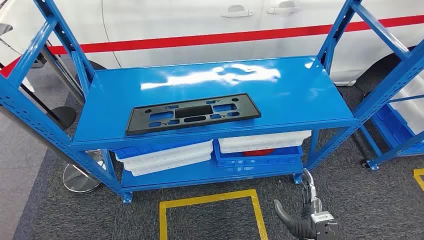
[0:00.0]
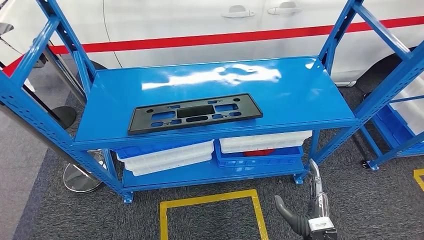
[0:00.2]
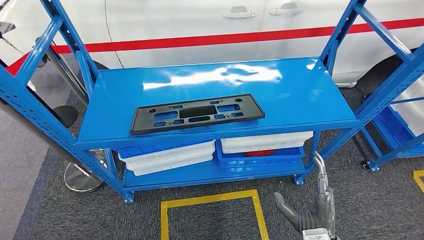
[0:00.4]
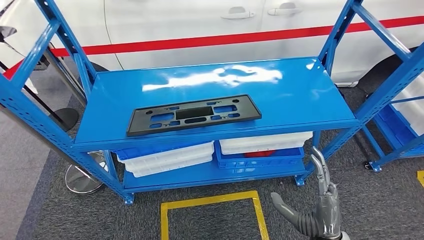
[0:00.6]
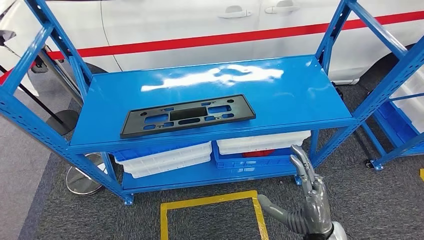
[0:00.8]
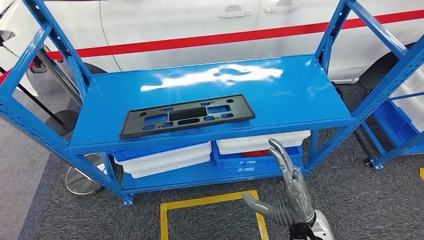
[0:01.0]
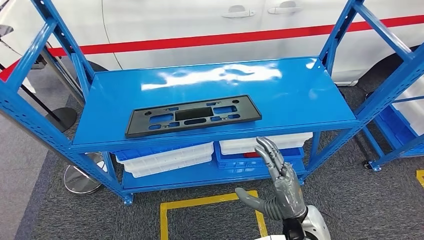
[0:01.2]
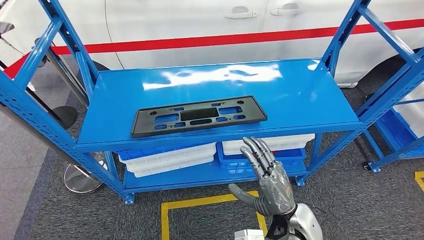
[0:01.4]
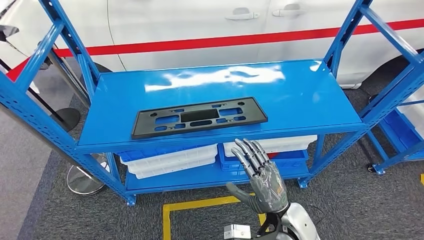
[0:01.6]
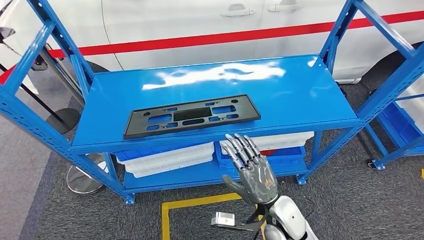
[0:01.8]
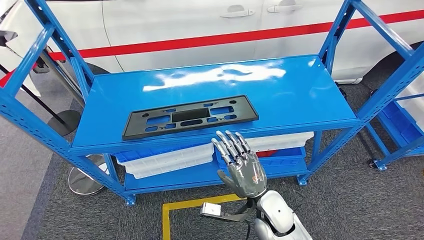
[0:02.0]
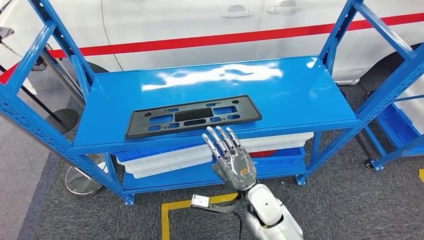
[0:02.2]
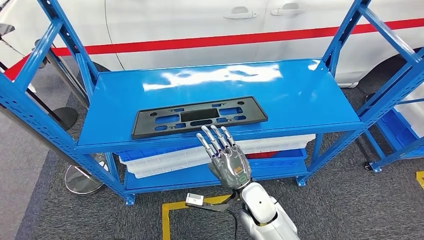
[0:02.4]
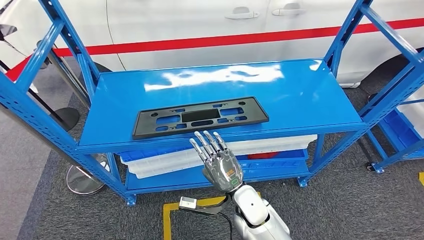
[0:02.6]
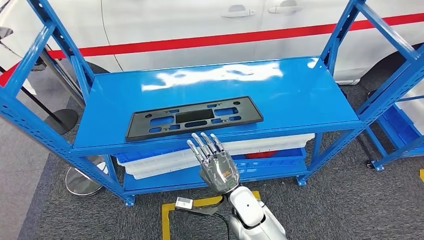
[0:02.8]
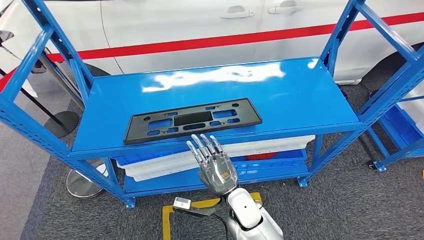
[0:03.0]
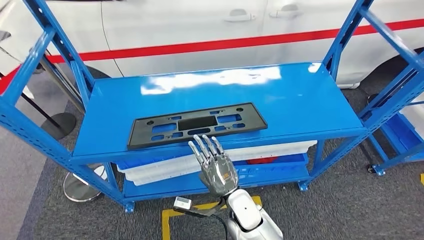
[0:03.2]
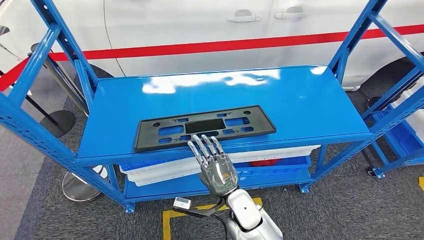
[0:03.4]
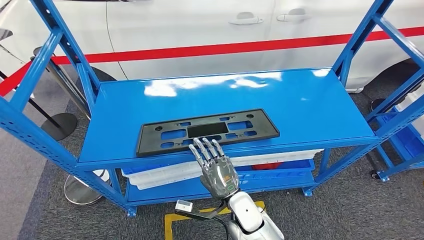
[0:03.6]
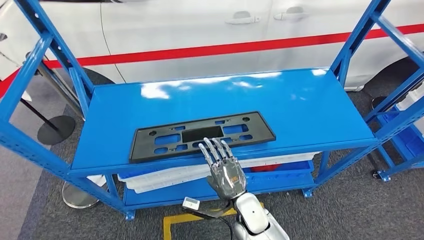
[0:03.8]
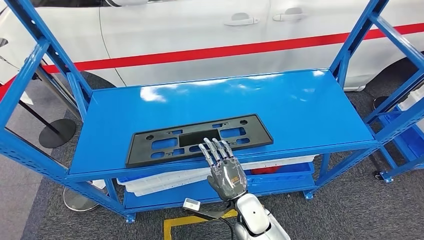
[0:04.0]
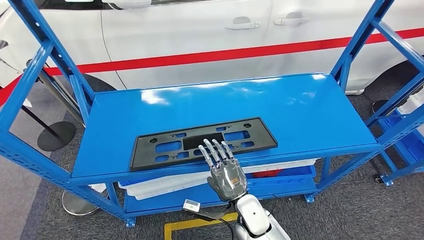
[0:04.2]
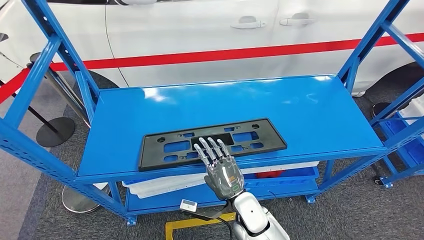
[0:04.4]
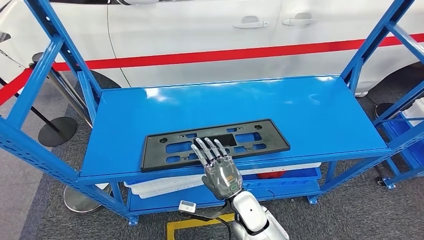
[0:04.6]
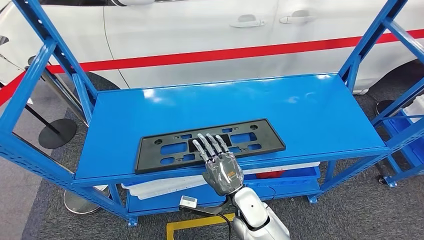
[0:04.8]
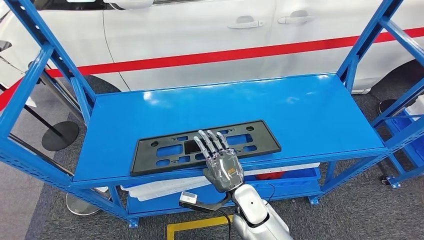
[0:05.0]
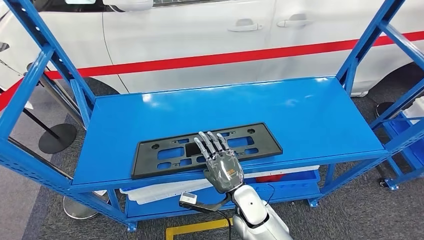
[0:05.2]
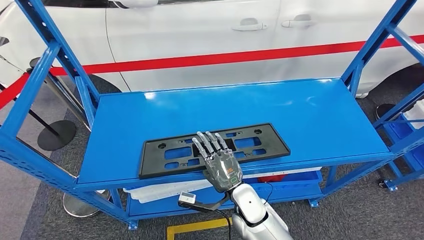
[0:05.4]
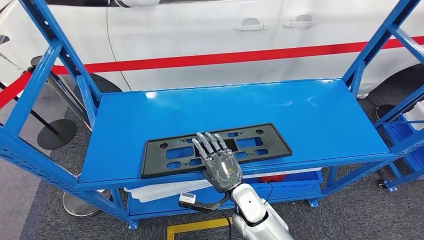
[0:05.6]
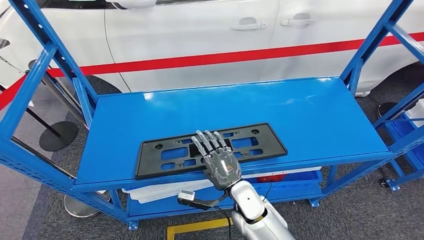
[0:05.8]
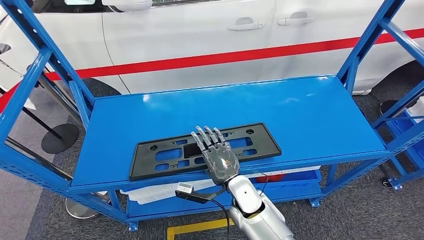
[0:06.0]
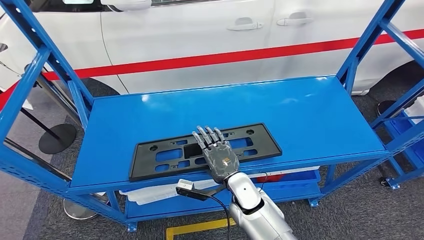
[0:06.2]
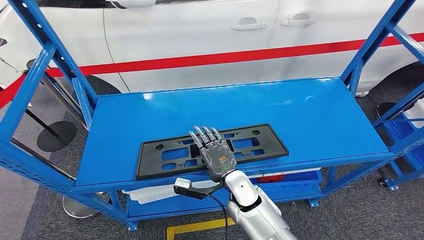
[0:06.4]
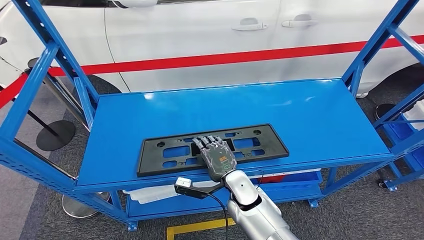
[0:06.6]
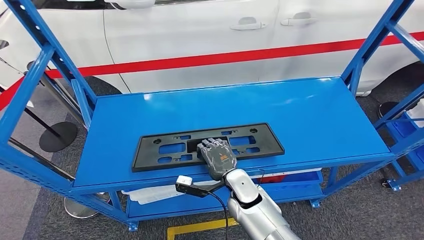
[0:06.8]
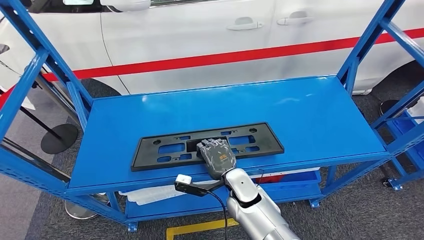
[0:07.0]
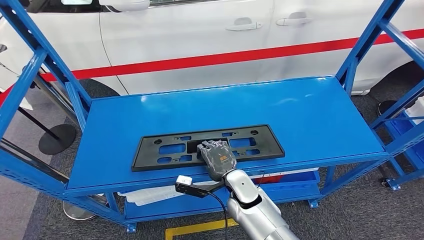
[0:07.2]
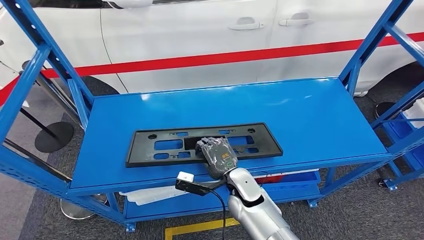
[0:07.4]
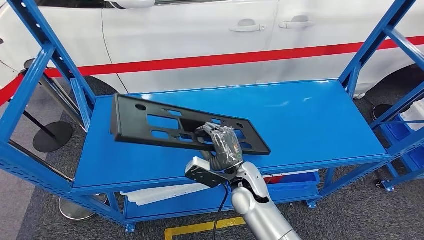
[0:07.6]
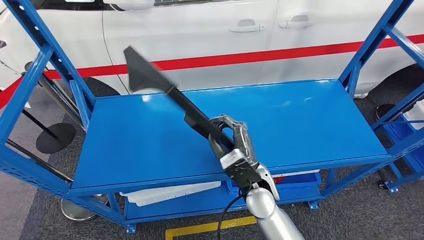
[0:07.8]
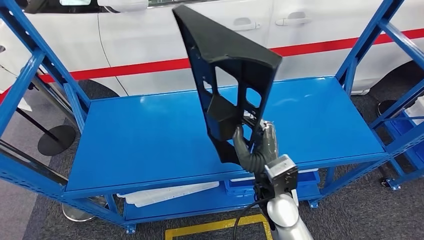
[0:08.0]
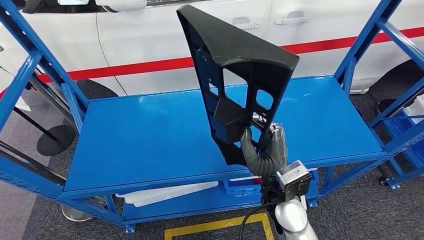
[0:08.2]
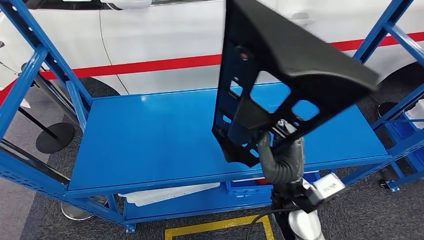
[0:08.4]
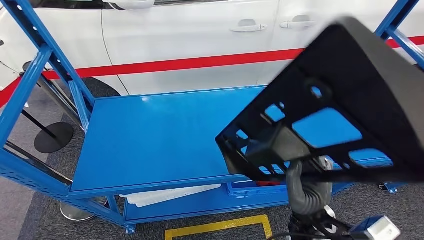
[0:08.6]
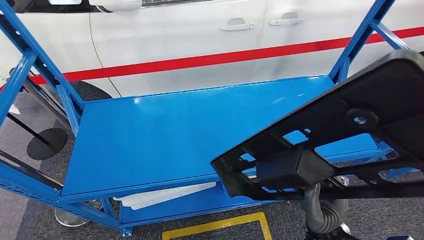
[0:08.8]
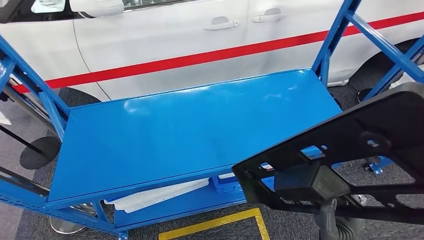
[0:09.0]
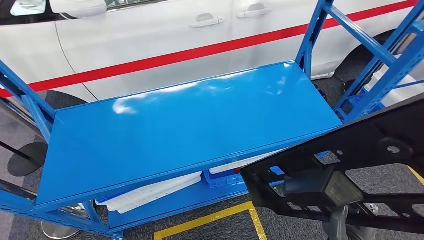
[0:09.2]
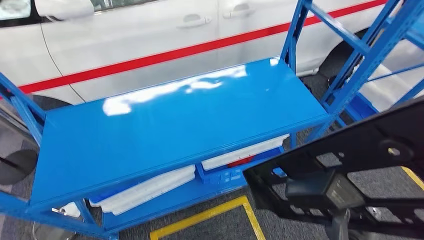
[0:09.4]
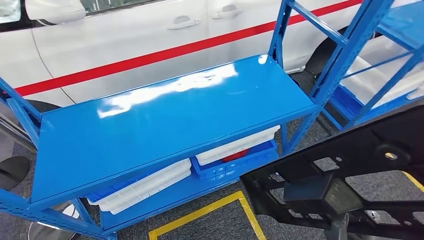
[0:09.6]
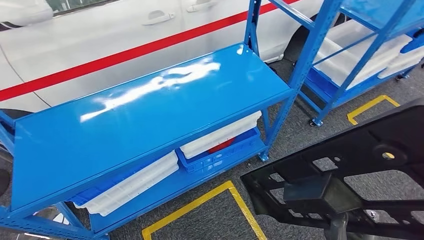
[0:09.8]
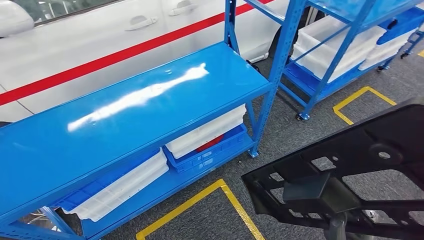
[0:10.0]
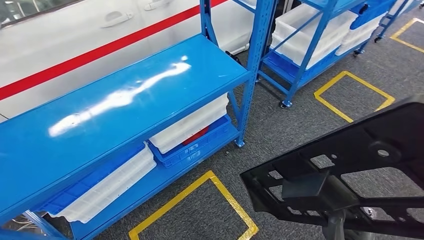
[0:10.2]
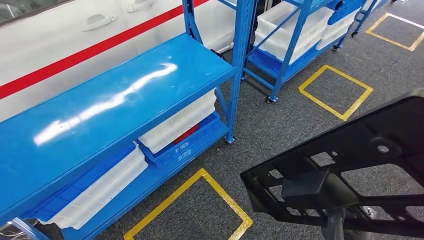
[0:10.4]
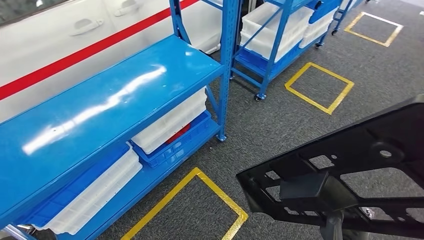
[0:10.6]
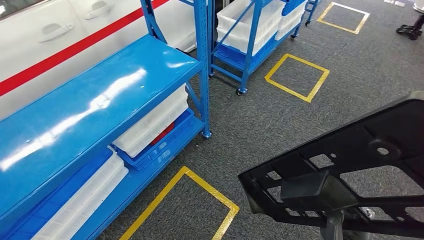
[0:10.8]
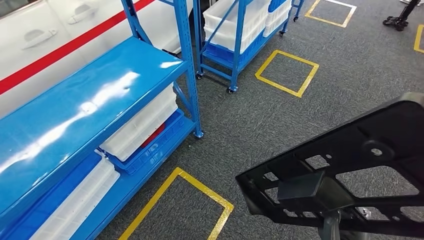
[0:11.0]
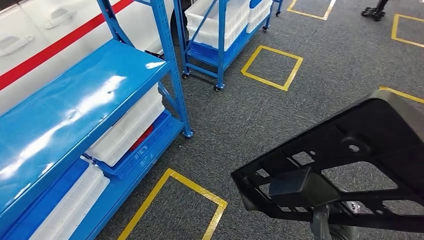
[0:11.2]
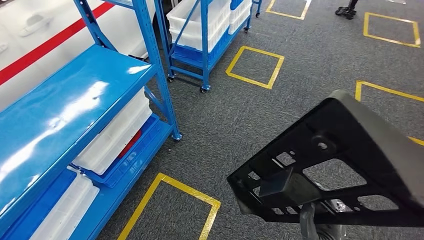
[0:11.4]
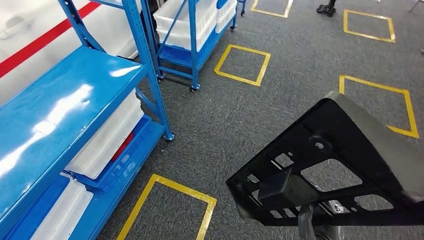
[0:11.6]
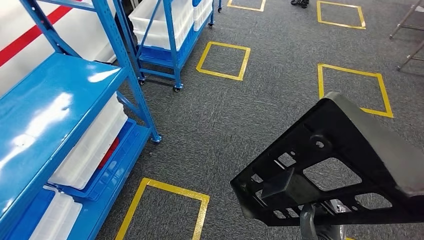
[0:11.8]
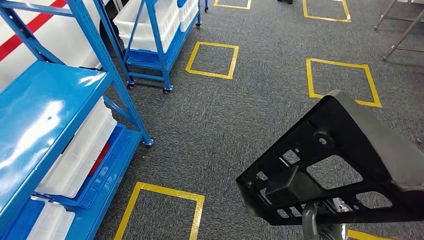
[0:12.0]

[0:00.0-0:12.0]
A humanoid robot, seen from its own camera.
Step, 0:00.0 to 0:08.4: Pick up the large material from the shelf.

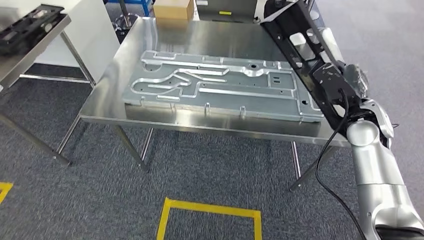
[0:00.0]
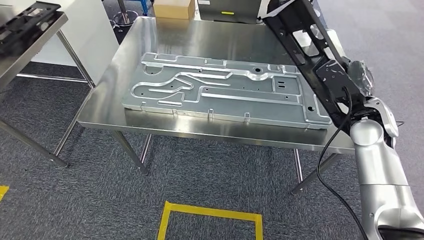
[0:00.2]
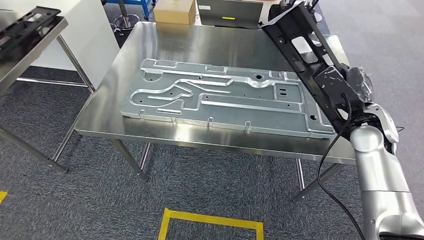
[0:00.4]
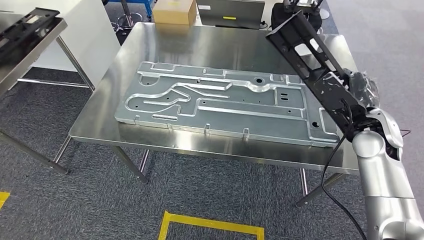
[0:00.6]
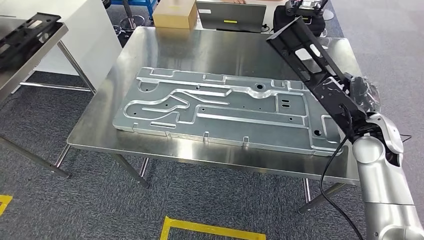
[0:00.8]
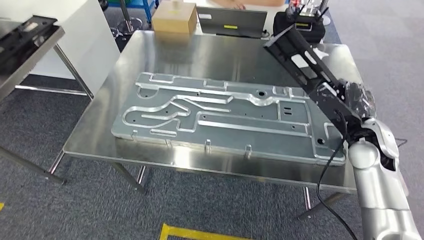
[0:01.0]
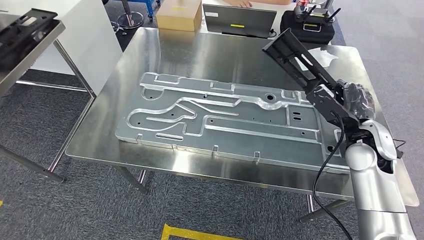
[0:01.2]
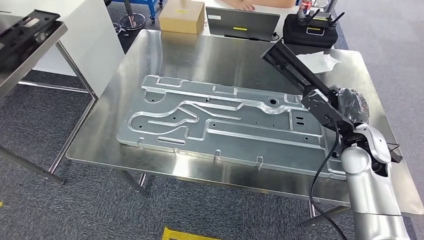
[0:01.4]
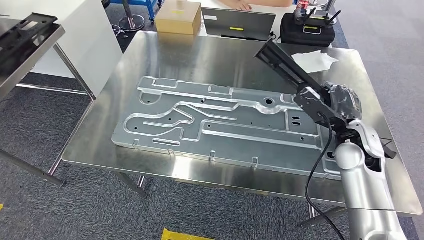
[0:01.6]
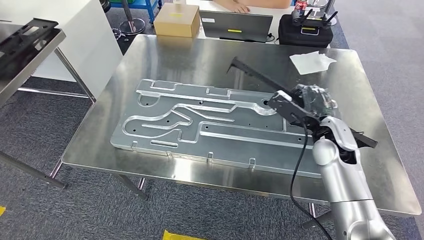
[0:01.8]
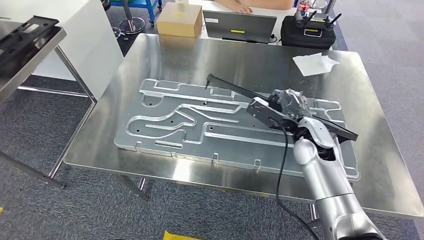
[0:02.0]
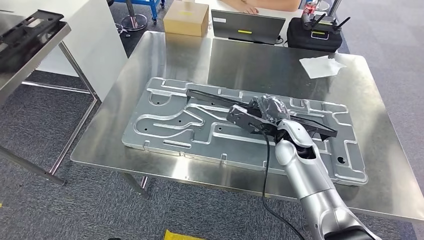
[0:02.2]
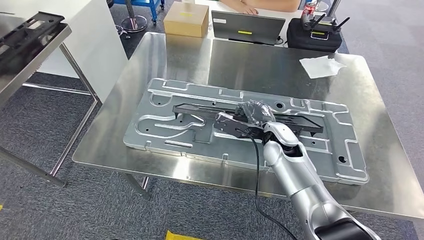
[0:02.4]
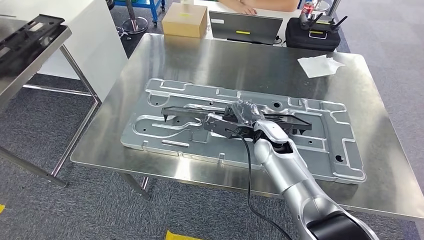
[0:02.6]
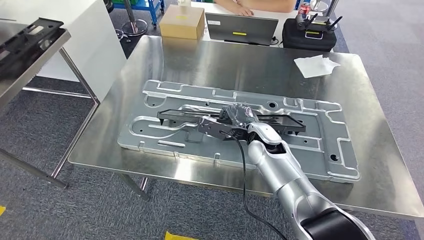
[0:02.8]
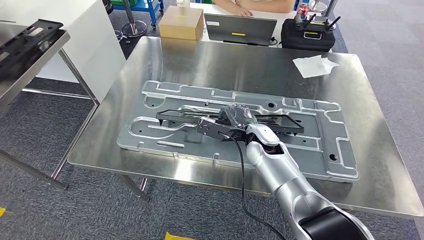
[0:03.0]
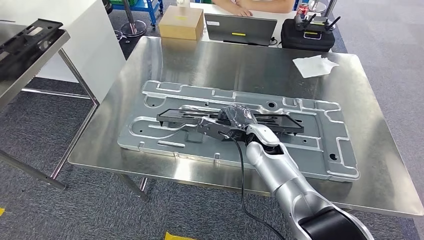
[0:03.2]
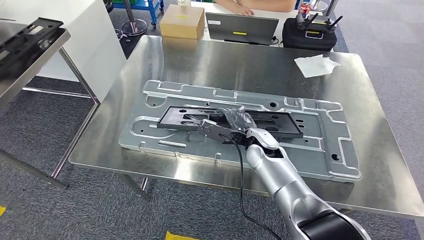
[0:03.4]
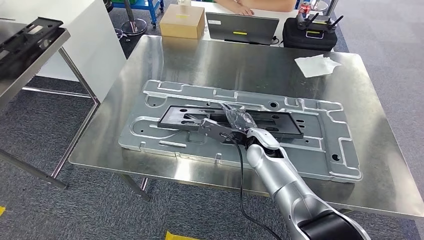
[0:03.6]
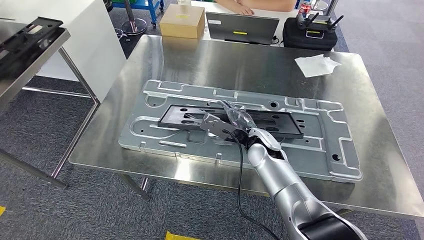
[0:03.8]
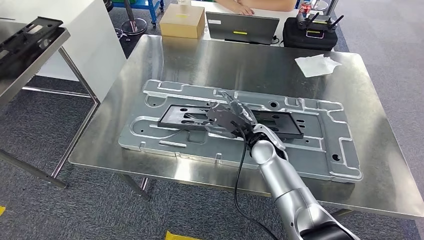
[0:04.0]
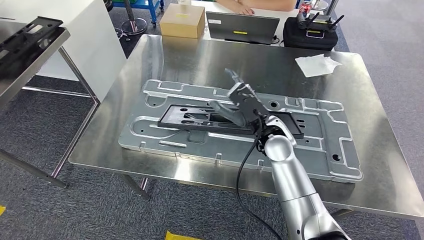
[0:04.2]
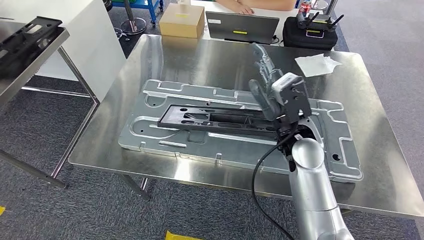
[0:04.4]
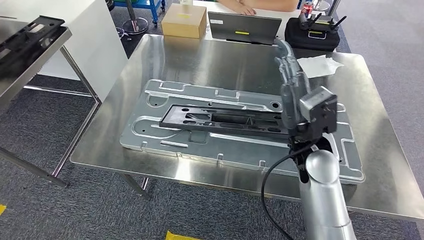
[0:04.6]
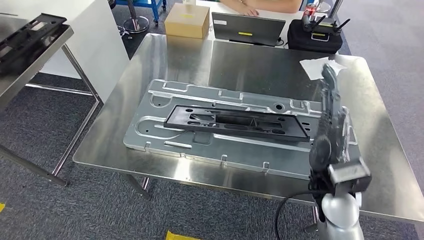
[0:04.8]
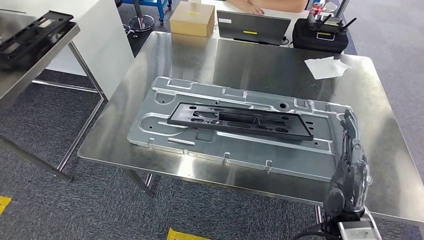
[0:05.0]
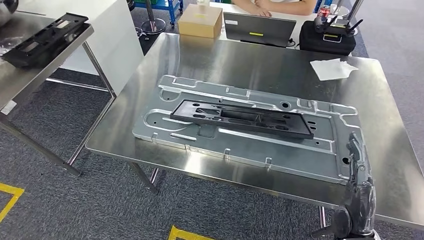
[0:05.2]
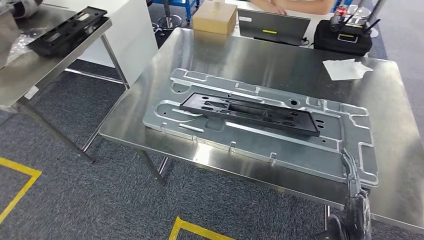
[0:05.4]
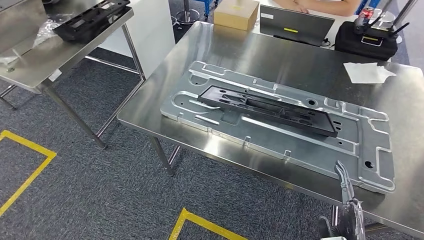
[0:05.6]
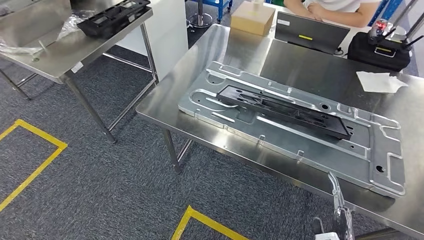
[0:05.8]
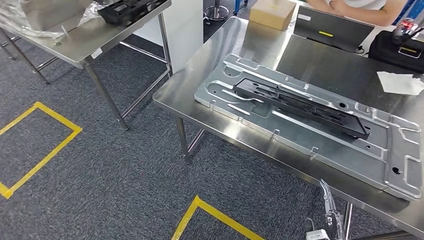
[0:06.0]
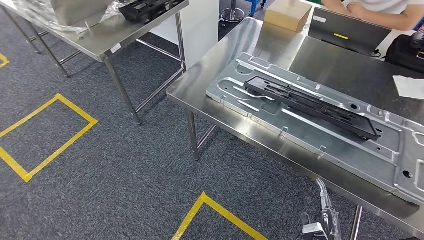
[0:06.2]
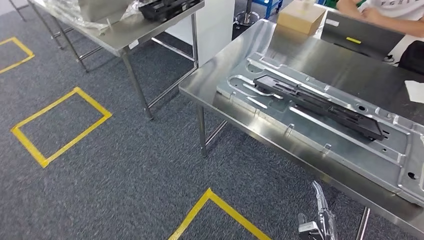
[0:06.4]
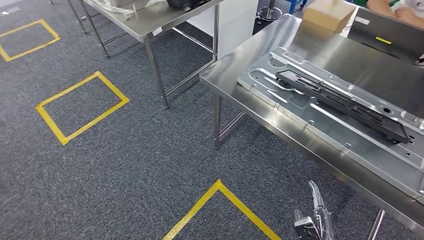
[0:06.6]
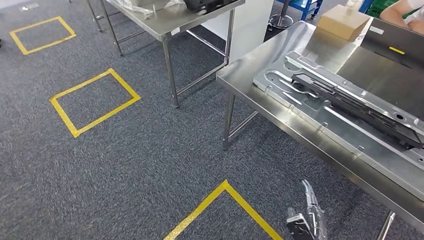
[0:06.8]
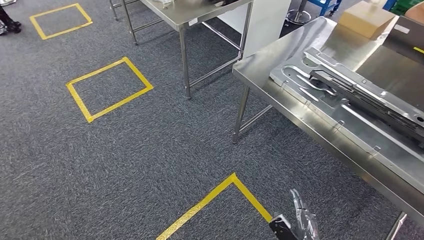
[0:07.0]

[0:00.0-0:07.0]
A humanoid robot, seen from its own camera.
Step, 0:01.4 to 0:06.8: Insert the large material into the corresponding slot on the workbench.
0:02.8 to 0:04.2: The right hand shifts by approximately 5 cm.
